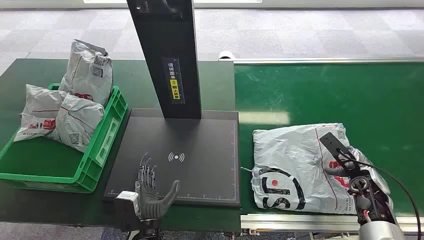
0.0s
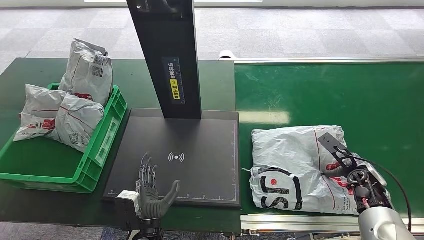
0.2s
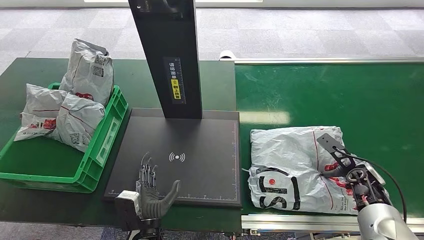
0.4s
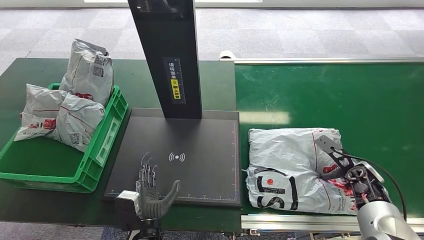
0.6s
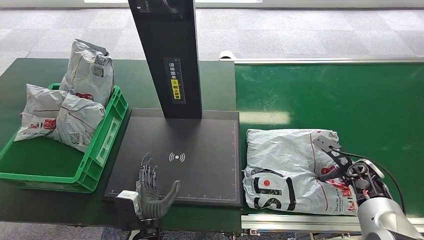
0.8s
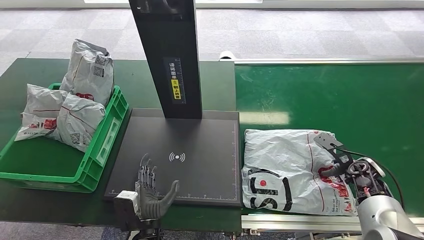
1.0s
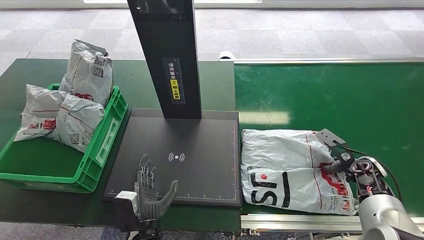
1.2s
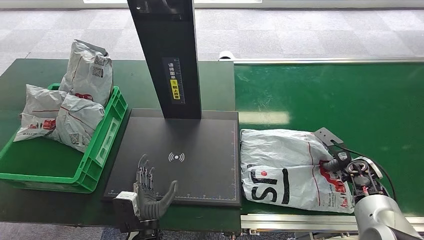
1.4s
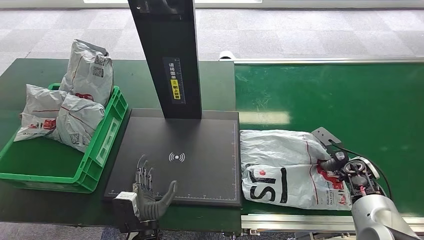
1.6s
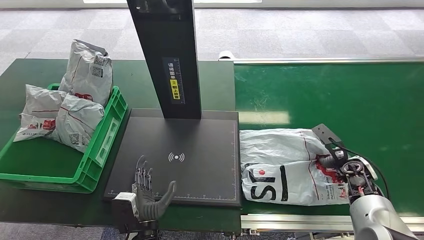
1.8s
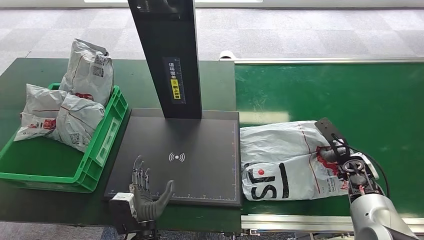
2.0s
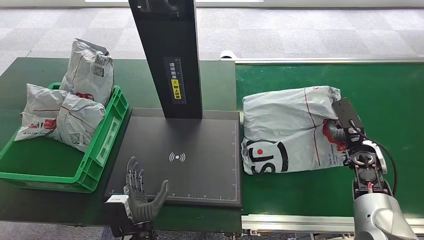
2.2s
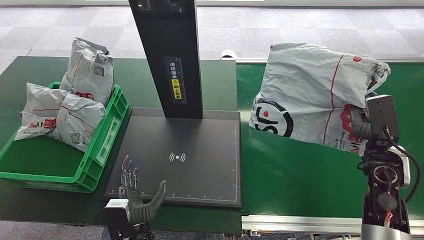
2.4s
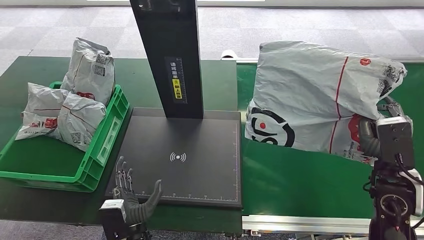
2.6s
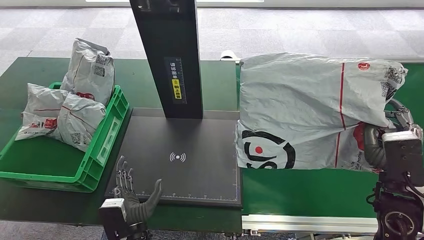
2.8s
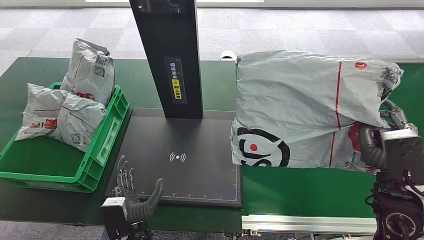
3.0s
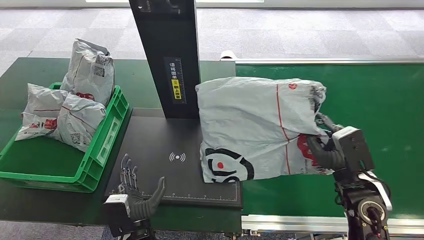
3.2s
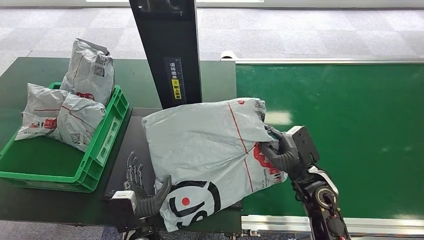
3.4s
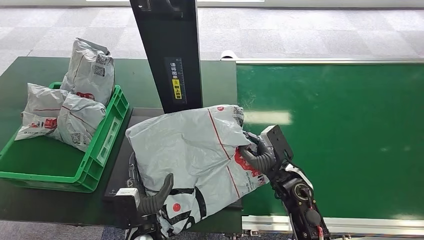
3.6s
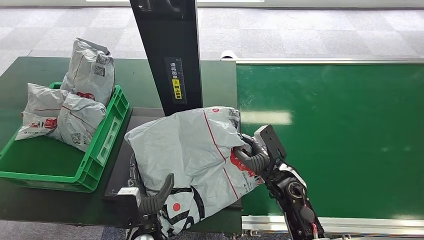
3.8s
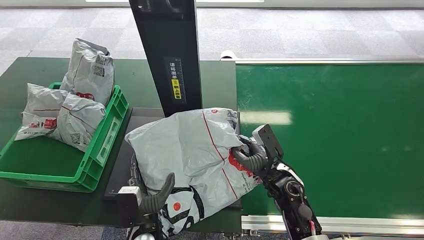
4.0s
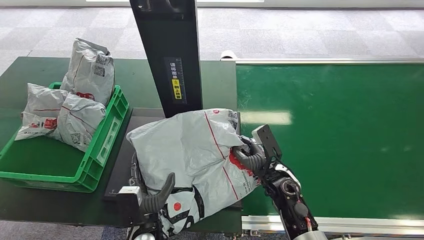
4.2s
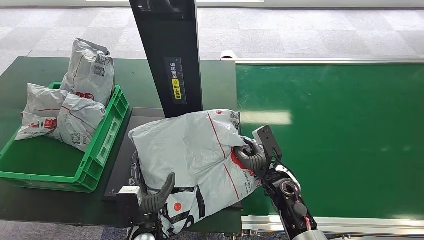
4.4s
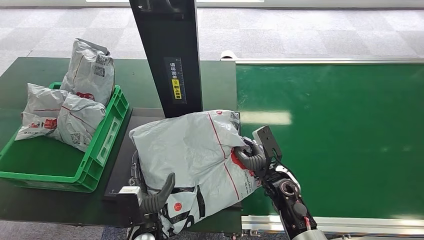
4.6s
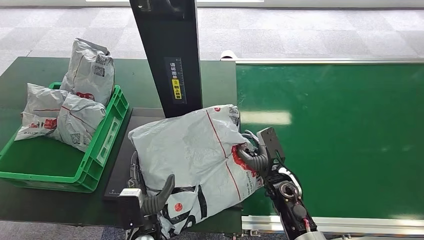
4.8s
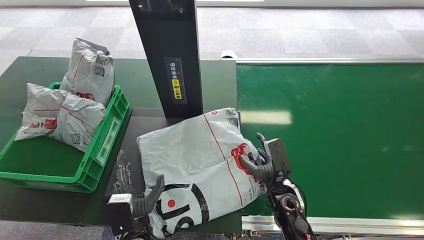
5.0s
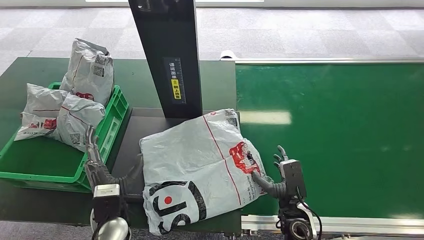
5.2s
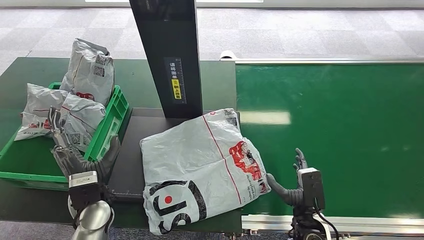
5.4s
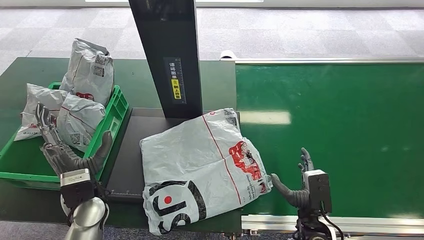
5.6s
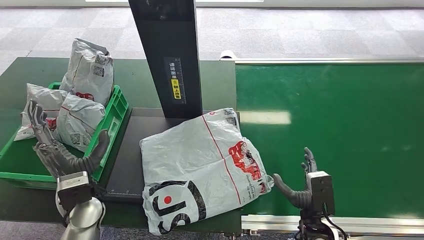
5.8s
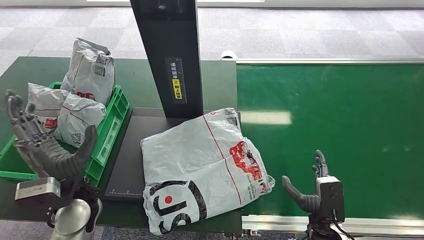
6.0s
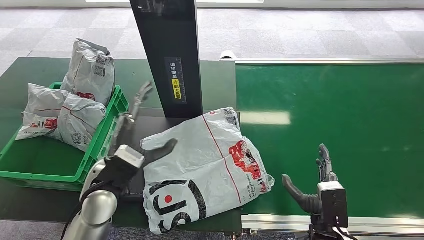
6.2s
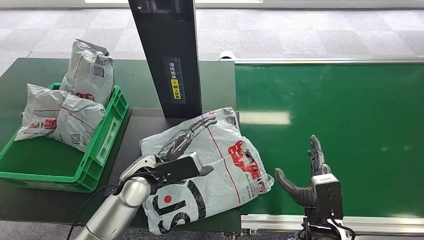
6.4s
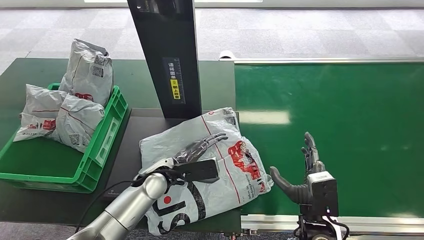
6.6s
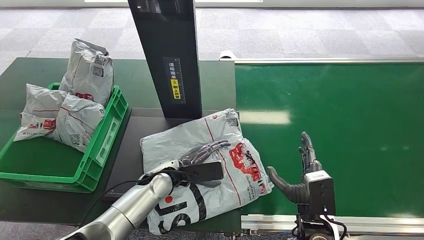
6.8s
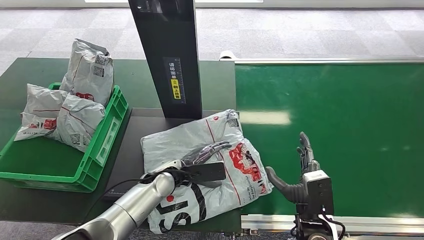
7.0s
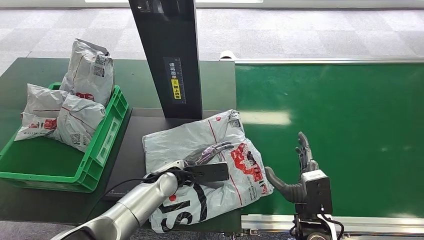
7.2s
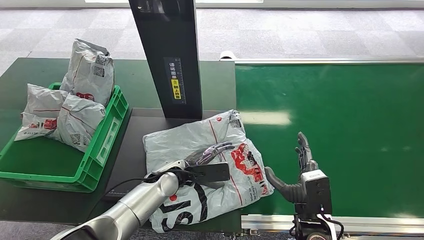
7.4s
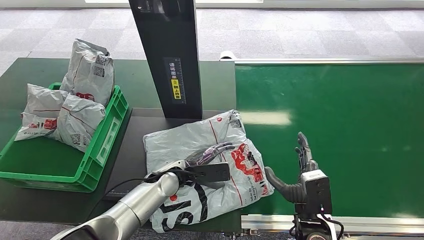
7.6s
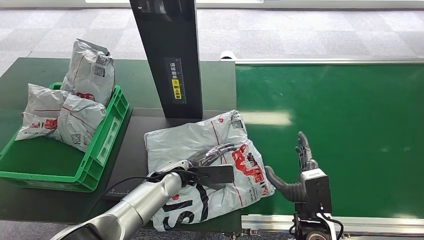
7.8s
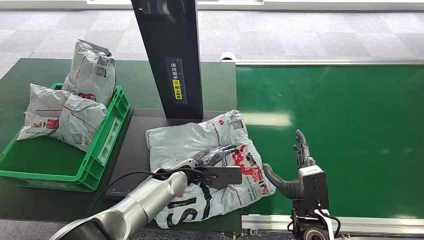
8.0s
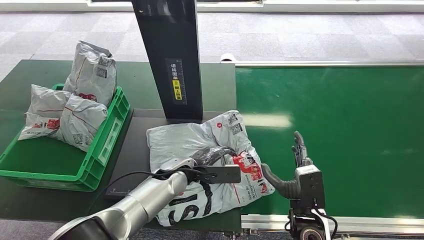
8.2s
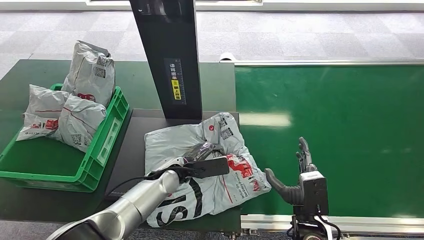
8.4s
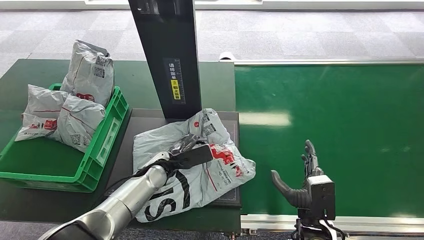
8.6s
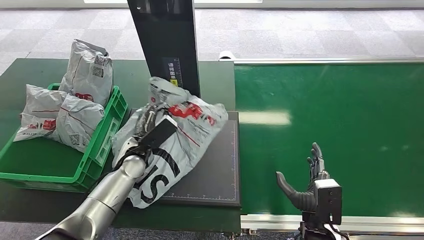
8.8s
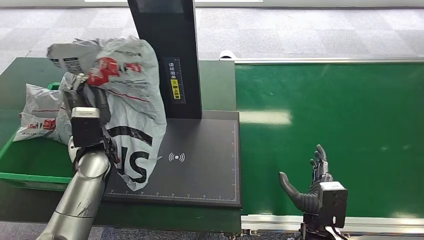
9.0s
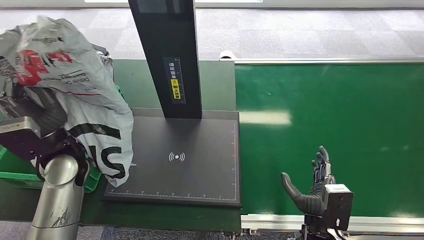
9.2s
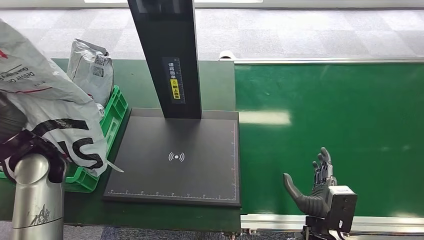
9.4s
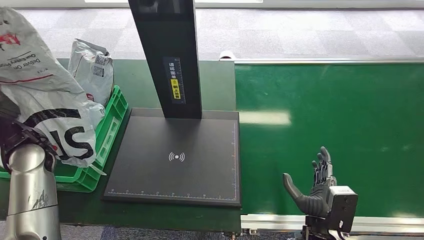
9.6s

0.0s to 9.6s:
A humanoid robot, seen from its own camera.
Step, 0.0s to 2.4s: Pick up the package from the conveyor belt.
Step, 2.6s to 5.8s: Place the package onto the inbound machine.
Step, 6.0s to 9.0s: Pick up the package from the inbound machine.
4.8s to 6.4s: The left hand shifts some 20 cm forward and upward; the right hand moves backward, roughly 10 cm.

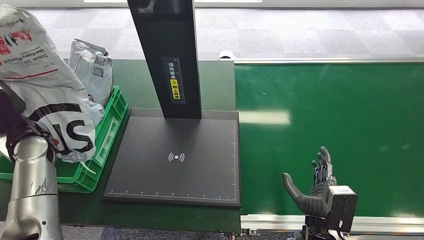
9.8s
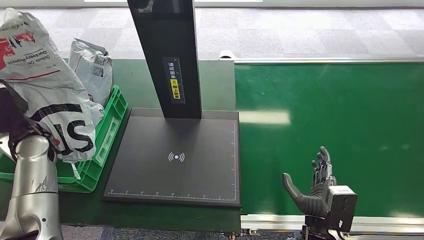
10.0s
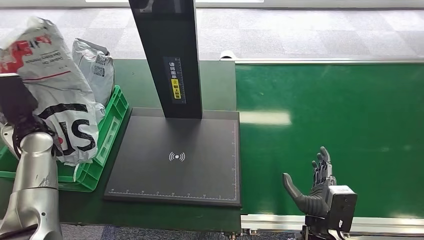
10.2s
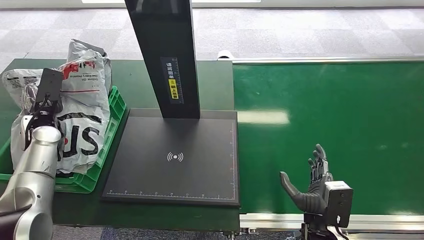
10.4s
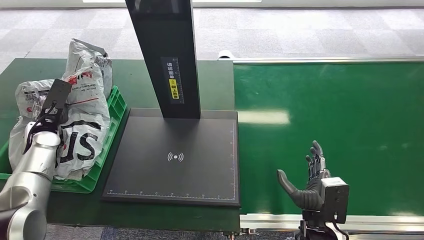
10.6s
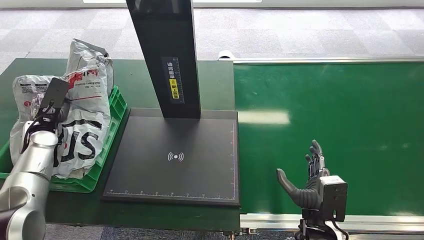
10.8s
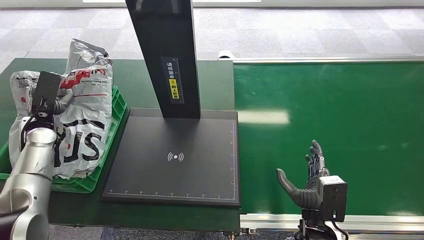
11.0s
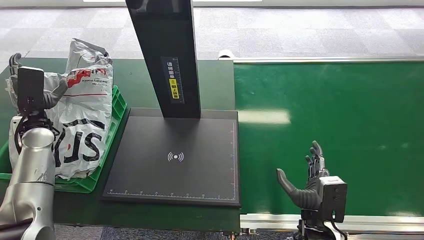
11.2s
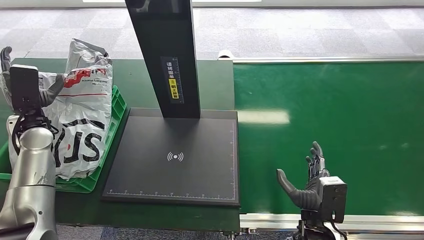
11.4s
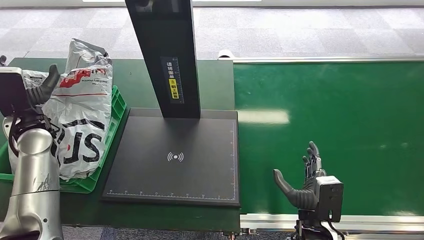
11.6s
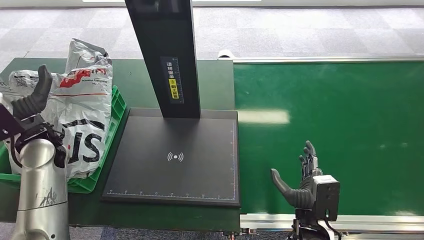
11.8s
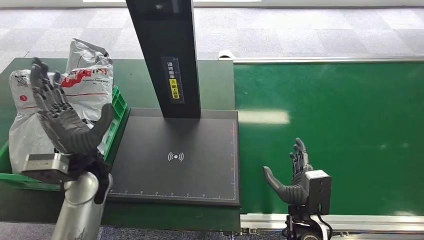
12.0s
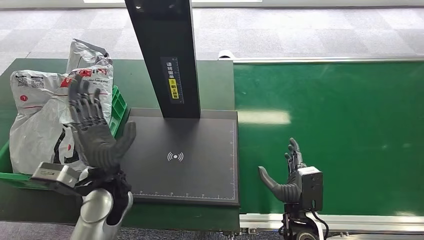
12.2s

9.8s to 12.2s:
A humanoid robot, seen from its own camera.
Step, 9.8s to 12.2s: Place the package into the parcel locker.
9.8s to 11.0s: The left hand ends up roughly 5 cm from where it was.
11.0s to 12.2s: The left hand is displaced to the right and backward by roughly 30 cm.
